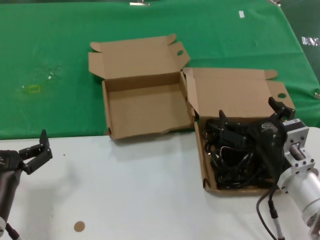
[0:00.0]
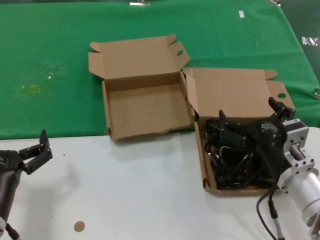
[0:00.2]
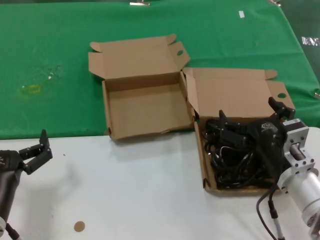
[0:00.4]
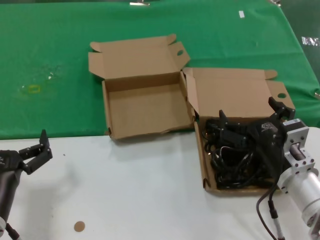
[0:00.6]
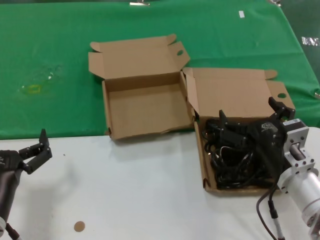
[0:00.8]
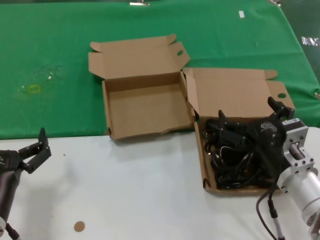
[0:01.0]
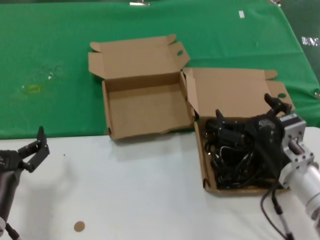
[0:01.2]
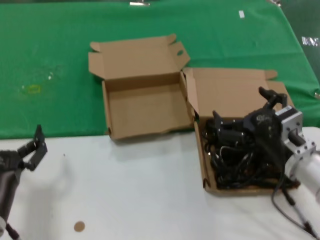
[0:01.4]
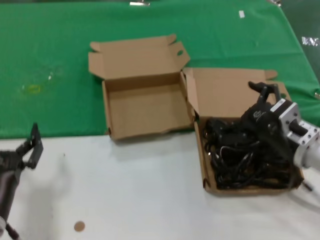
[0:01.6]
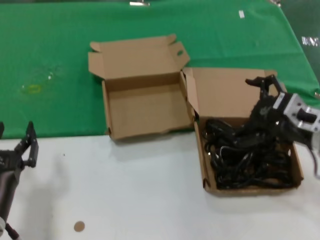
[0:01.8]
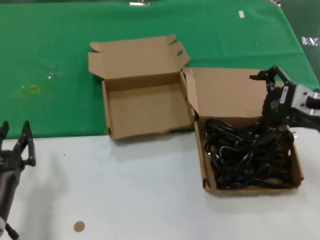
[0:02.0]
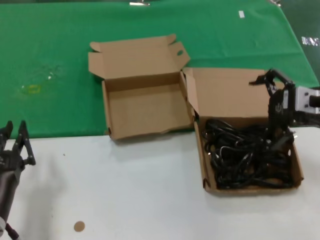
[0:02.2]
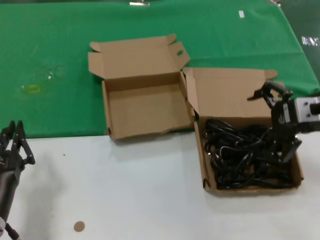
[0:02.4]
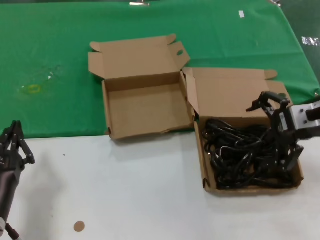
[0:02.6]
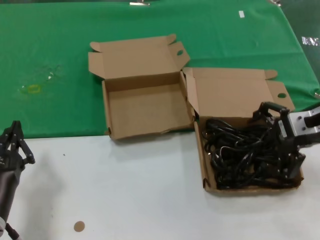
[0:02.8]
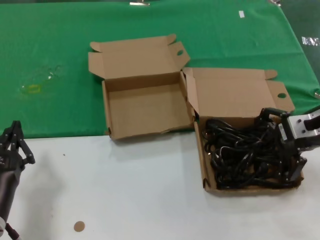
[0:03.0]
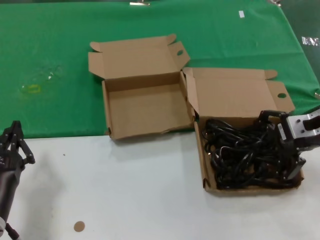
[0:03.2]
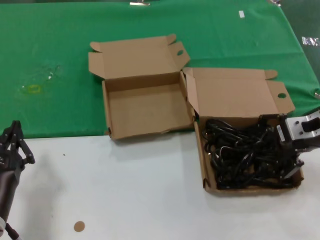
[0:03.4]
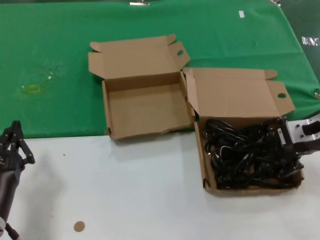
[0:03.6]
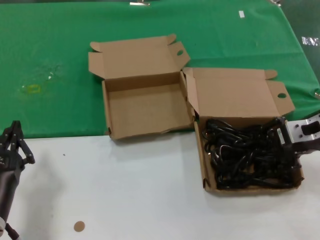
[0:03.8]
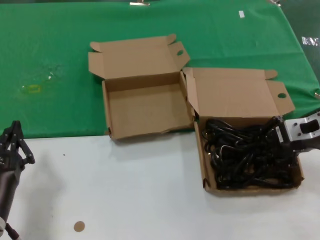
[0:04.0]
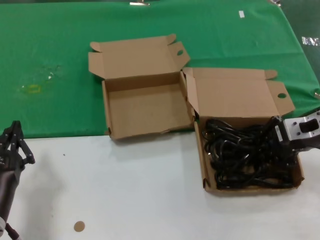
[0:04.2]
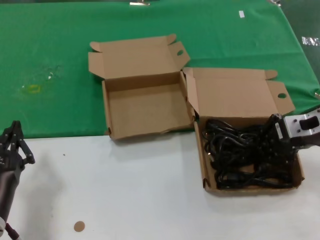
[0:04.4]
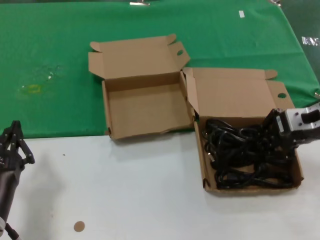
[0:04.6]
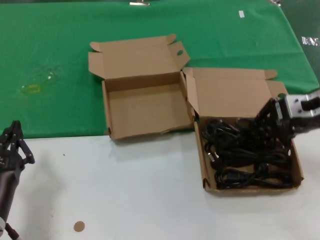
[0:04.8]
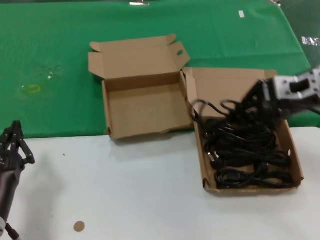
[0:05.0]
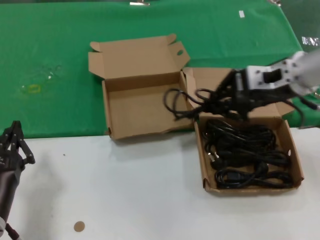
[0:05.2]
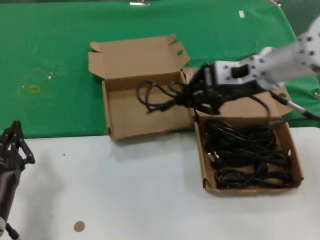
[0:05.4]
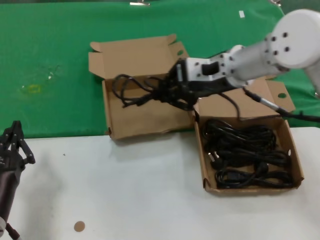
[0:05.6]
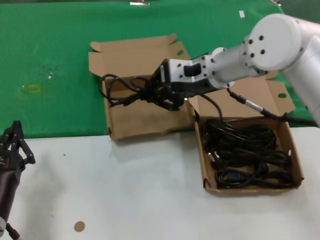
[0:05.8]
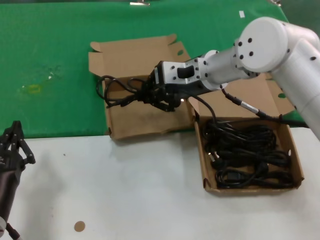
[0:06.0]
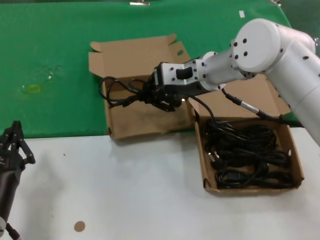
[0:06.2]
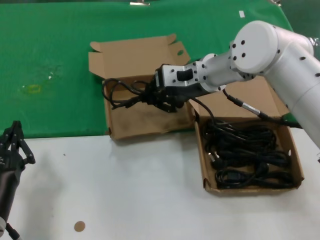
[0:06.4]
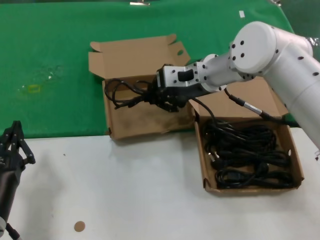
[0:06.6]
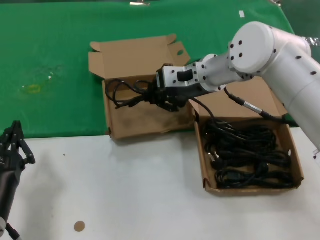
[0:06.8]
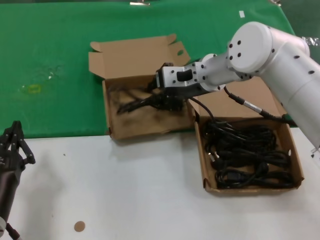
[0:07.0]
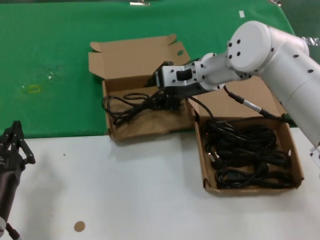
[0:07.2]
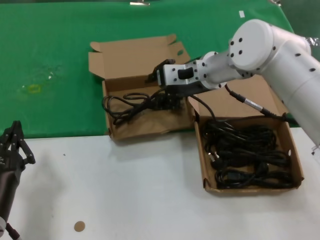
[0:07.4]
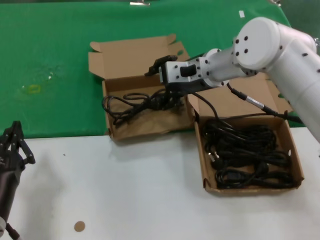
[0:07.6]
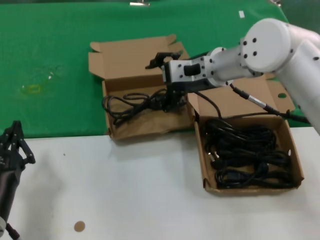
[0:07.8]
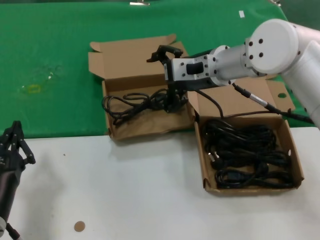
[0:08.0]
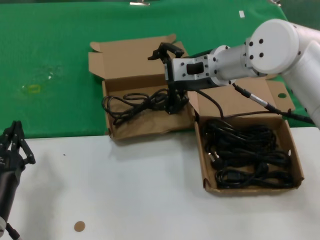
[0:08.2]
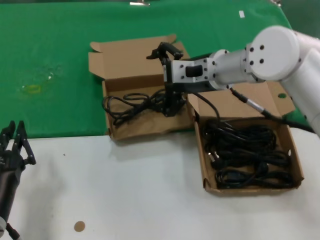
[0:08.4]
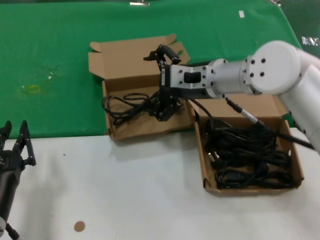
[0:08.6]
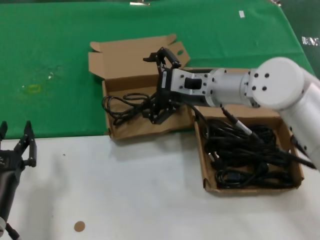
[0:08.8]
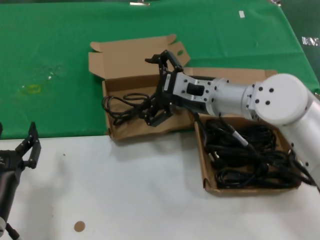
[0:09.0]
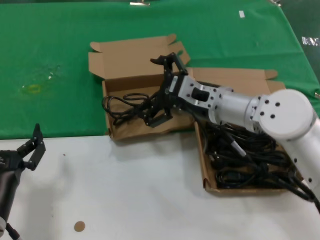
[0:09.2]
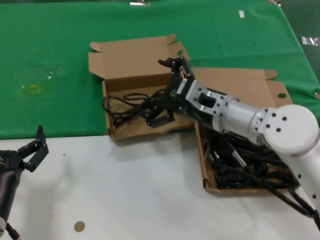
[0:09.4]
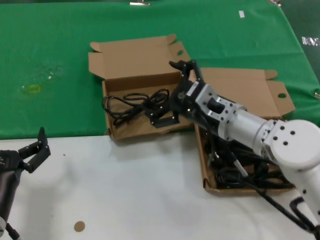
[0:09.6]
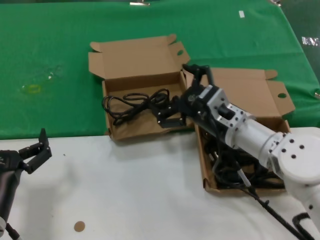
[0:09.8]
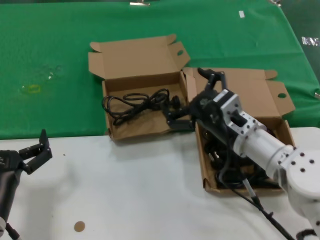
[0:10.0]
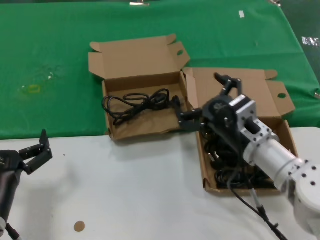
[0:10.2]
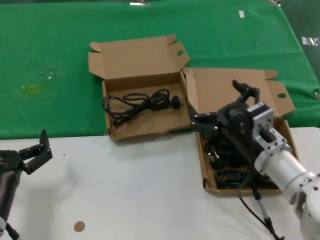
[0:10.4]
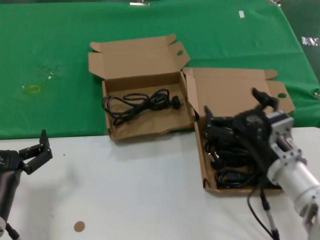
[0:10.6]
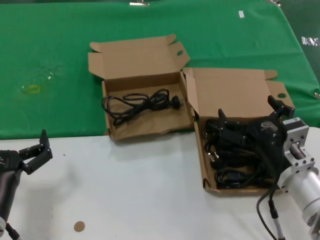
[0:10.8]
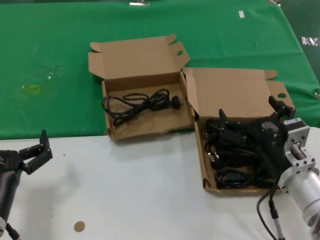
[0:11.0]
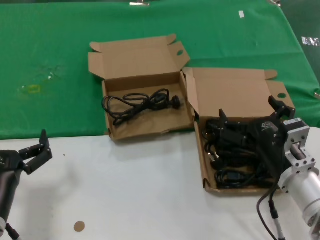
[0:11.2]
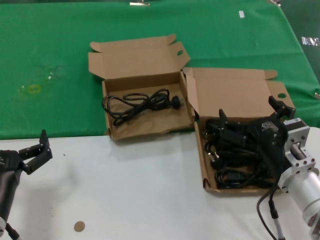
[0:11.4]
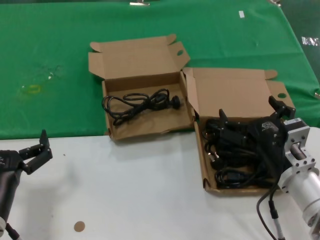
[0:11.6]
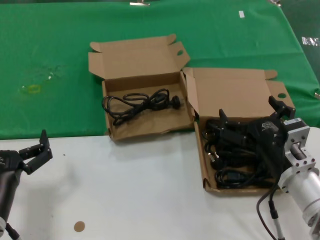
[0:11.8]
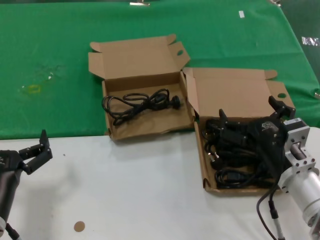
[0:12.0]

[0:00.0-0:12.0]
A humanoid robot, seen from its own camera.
Task of the whole recording: take the parts from the box containing them and put them into an empty box.
Step, 0.0 to 4.0 s: Grasp the data cable.
Step, 4.2 to 7.0 s: Place the data cable in the another box.
0.0 to 1.6 s: The right hand moves upward, roughly 5 cm.
1.6 to 3.0 s: The right hand shifts approximately 15 cm upward, forward and to the right.
3.0 to 4.4 s: The hands stay close to where they were, moving slightly.
4.4 to 6.0 s: The right hand moves to the left and forward, roughly 20 cm.
6.0 to 7.6 s: The hands make only small movements.
7.6 to 9.0 s: The right hand moves backward and downward, about 10 cm.
9.0 to 10.4 s: The right hand heads backward, downward and to the right, covering some 15 cm.
10.4 to 12.0 s: The right hand changes place by roughly 5 cm.

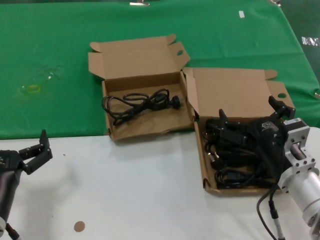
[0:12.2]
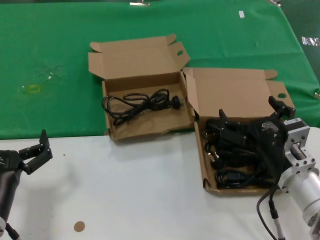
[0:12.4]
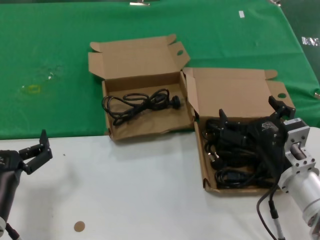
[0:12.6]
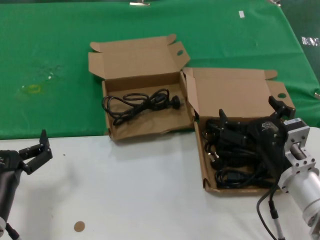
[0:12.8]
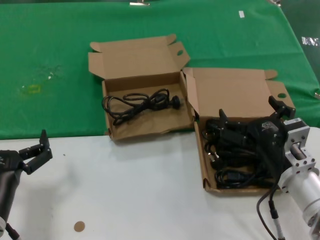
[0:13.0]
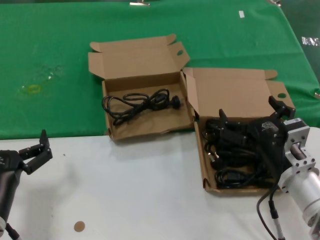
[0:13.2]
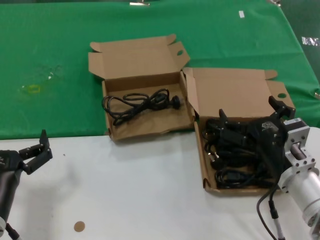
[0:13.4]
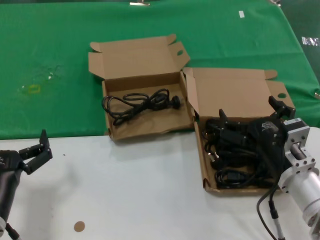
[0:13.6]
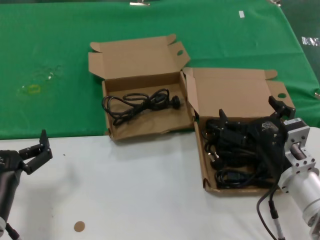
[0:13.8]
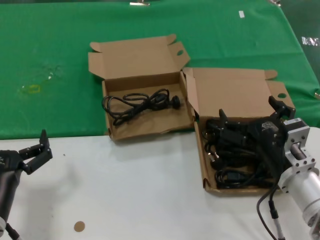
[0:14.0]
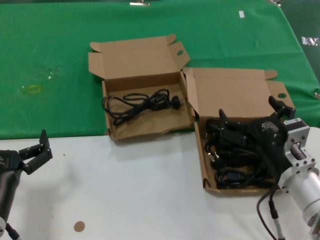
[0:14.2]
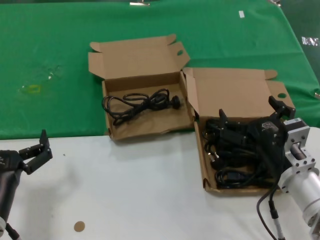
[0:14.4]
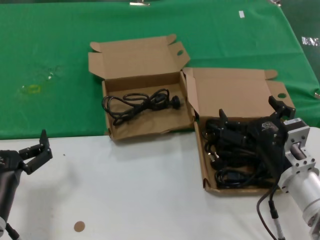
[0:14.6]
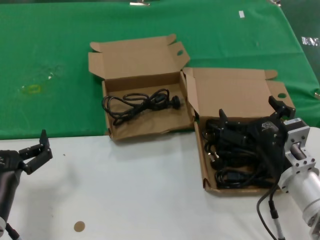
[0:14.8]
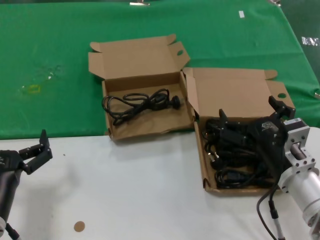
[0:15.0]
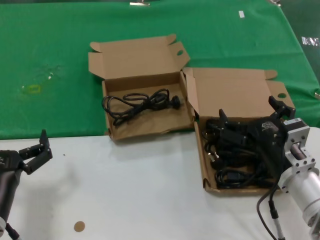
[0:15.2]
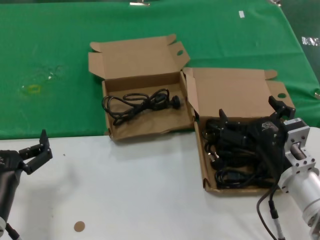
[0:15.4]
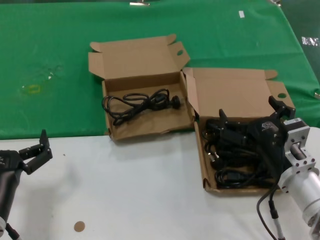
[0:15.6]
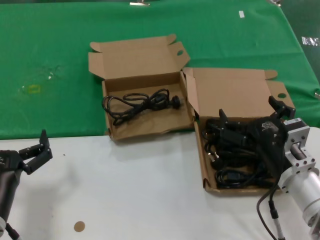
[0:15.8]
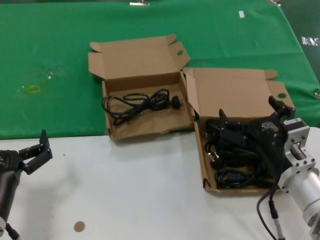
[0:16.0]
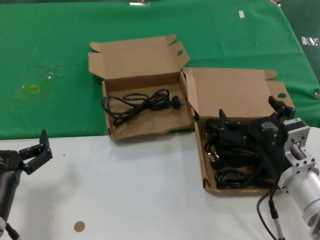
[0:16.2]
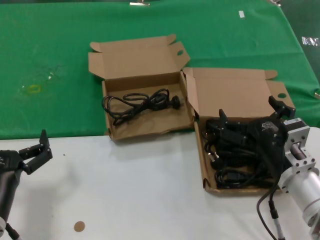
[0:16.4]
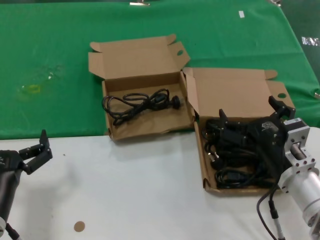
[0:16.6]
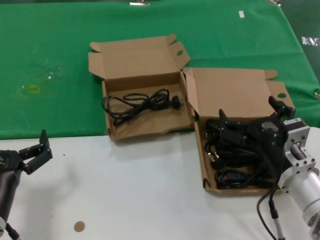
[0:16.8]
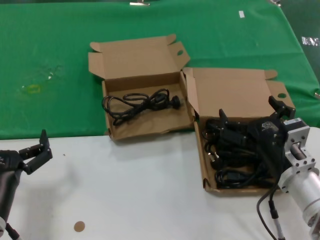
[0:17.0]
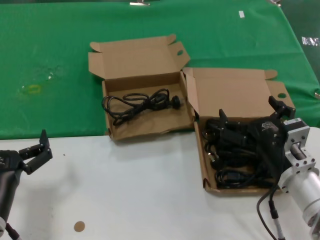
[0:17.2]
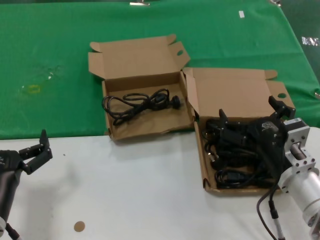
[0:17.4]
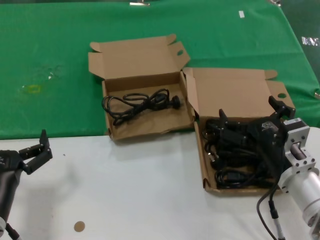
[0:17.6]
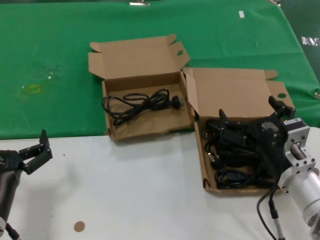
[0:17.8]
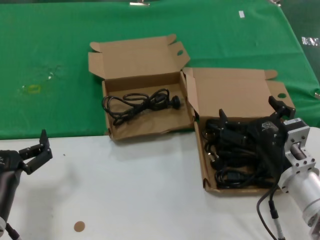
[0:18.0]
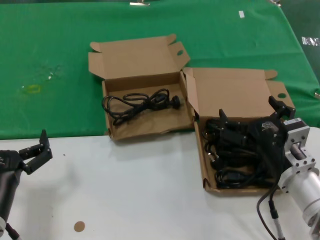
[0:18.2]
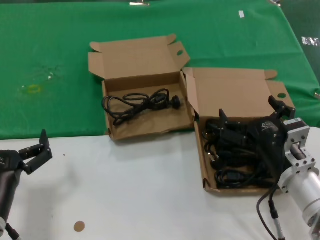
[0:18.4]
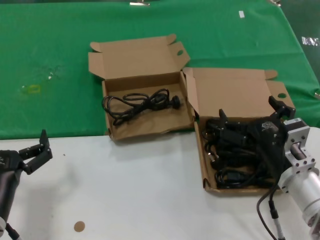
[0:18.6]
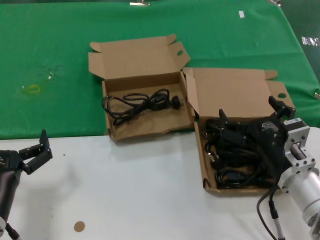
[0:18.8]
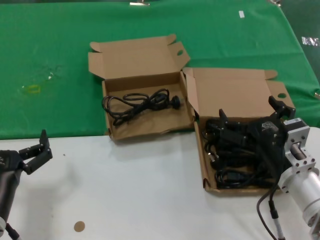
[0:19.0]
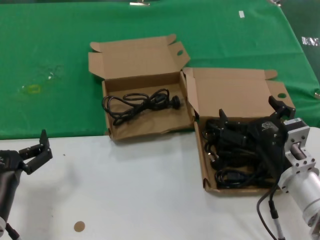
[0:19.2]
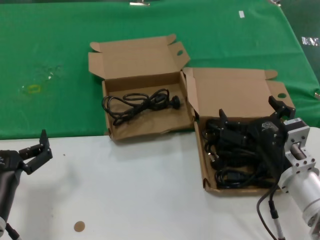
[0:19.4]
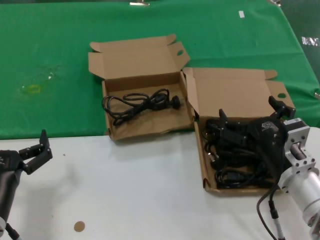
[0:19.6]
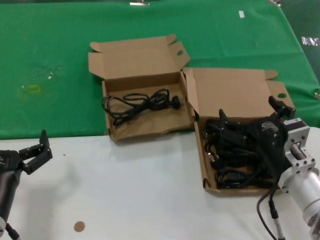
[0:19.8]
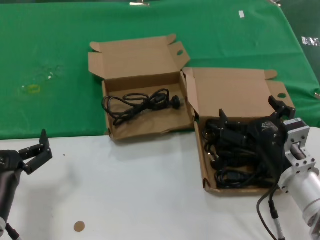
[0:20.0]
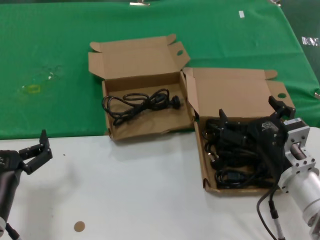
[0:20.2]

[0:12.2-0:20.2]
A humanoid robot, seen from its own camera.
Task of the whole recording: take the parts from the box containing them and put them into an empty box.
12.2 to 20.2 s: The two hands keep their place.

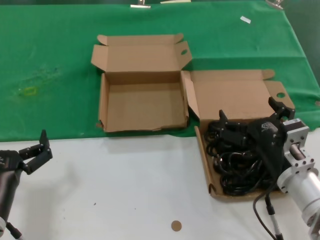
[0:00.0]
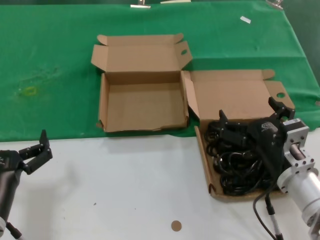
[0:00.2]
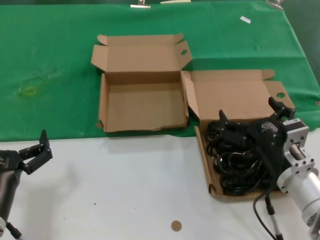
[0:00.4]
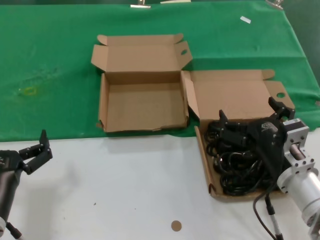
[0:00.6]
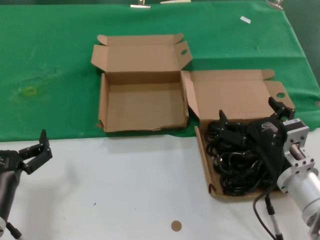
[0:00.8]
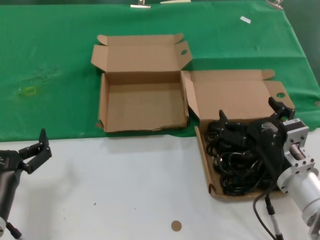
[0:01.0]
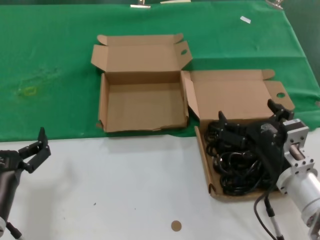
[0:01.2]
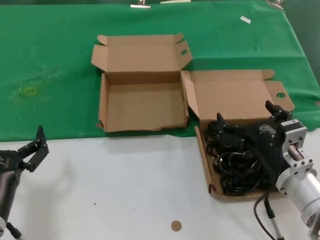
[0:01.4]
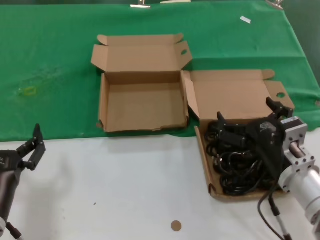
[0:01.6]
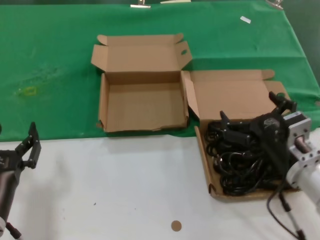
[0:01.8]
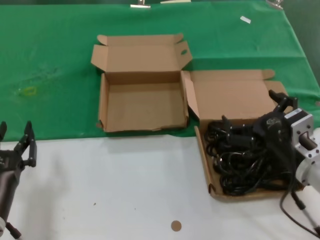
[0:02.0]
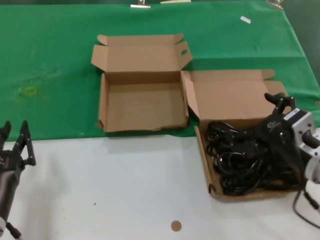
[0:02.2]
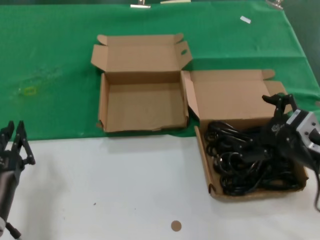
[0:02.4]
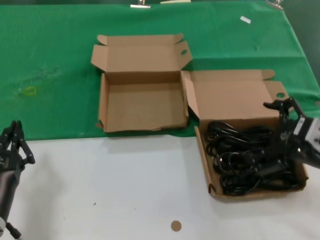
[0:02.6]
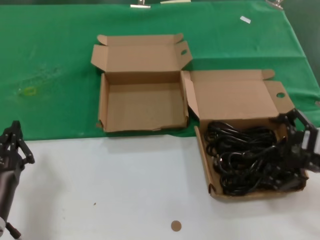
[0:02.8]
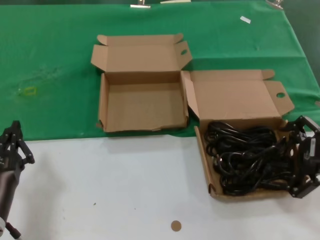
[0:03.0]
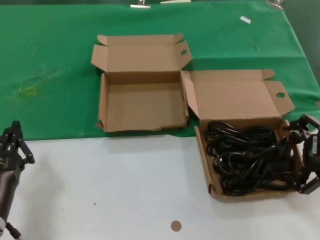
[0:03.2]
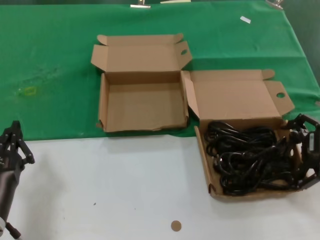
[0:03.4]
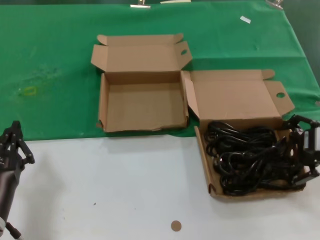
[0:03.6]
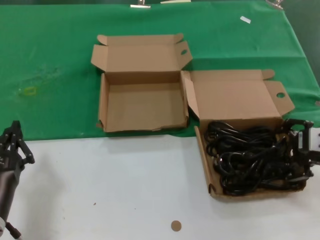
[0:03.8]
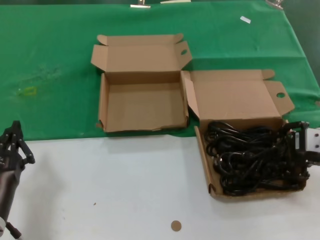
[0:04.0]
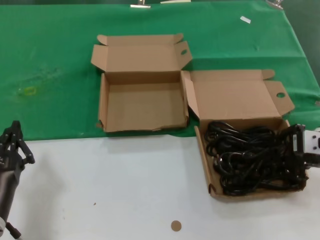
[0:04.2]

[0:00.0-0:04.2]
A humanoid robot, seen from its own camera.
Task of the whole recording: take the parts from the box containing them and put them into an empty box.
0.0 to 1.4 s: The two hands keep their place.
1.4 to 2.8 s: The right hand shifts some 15 cm upward and to the right.
2.8 to 4.2 s: The right hand ends up some 5 cm from where it was.
